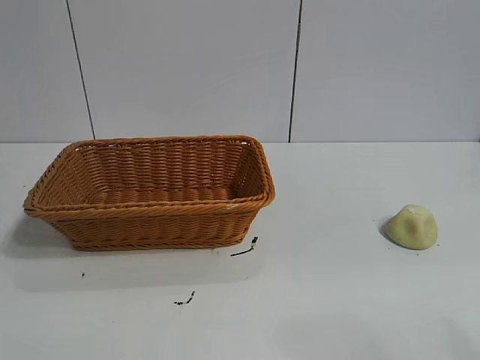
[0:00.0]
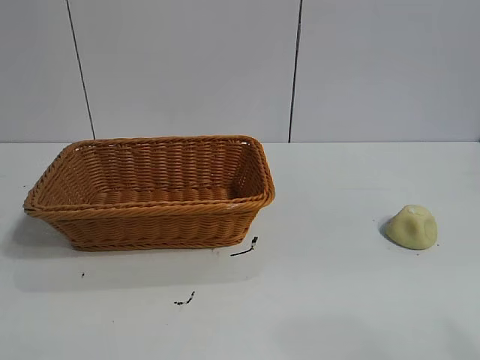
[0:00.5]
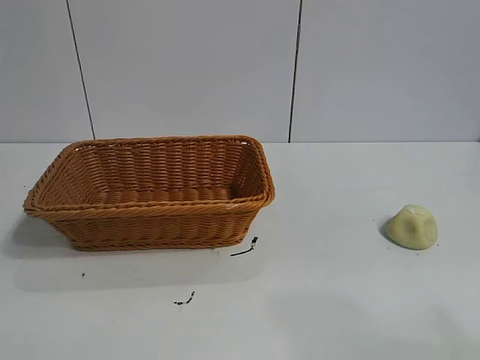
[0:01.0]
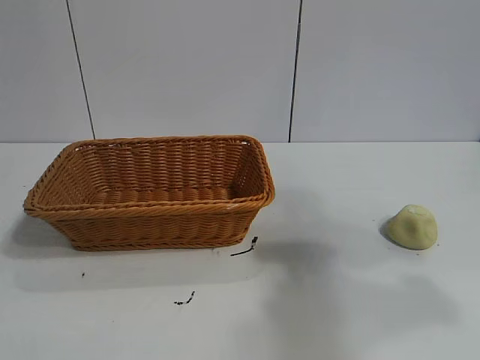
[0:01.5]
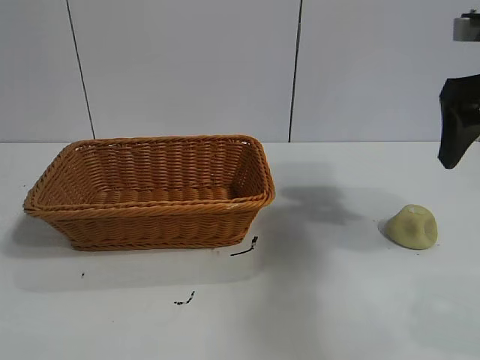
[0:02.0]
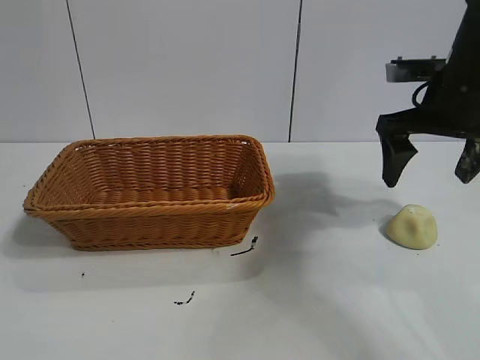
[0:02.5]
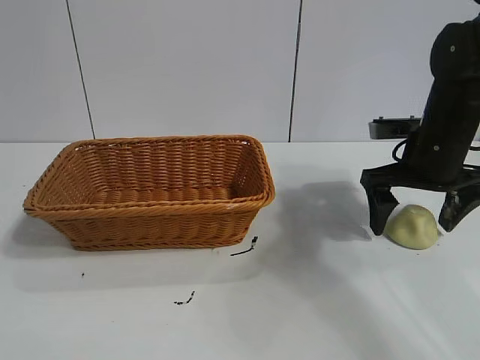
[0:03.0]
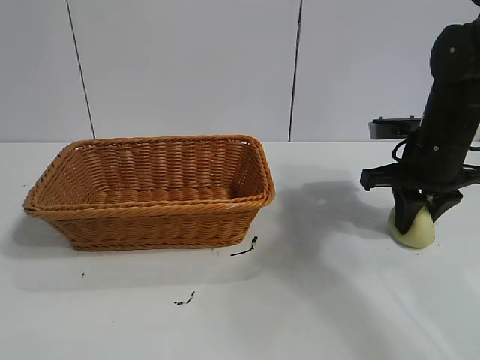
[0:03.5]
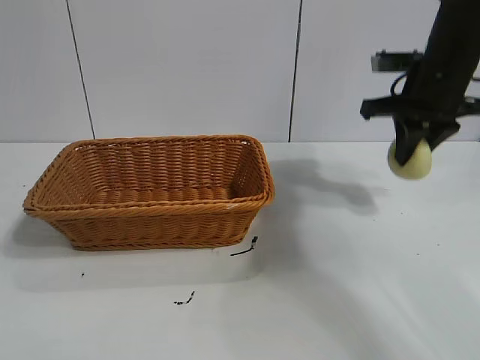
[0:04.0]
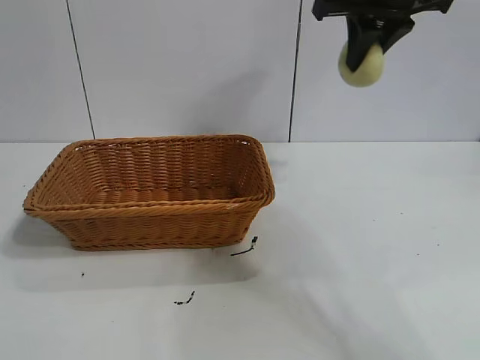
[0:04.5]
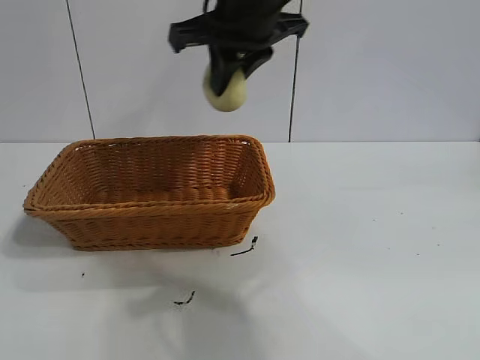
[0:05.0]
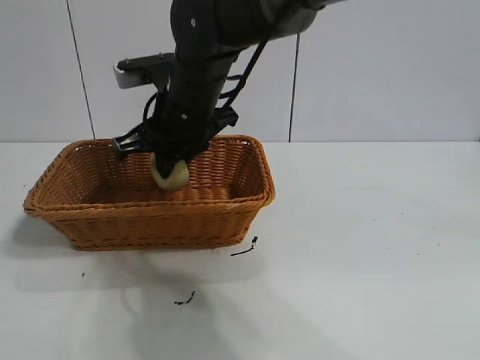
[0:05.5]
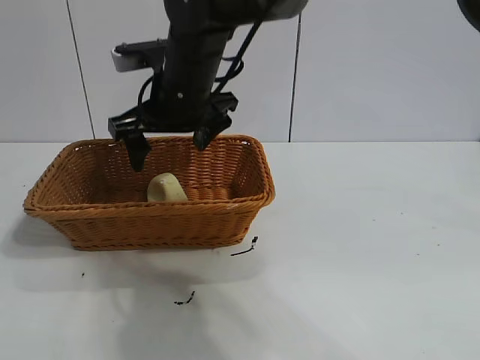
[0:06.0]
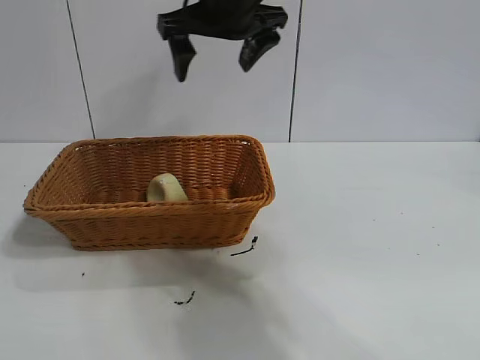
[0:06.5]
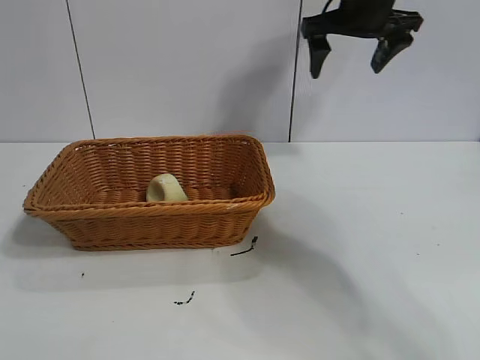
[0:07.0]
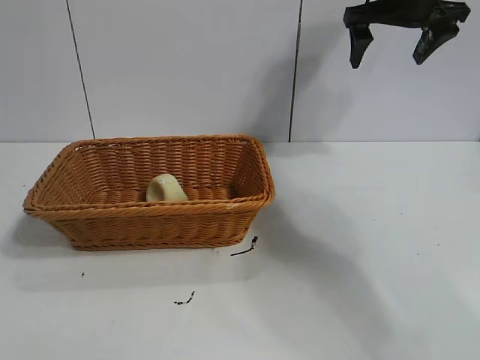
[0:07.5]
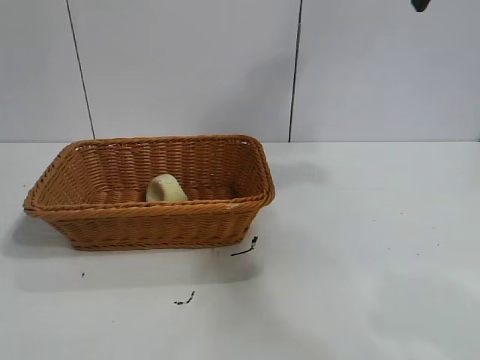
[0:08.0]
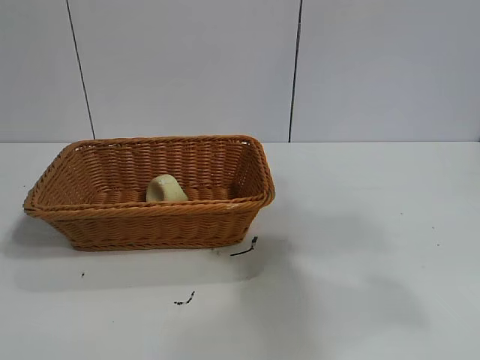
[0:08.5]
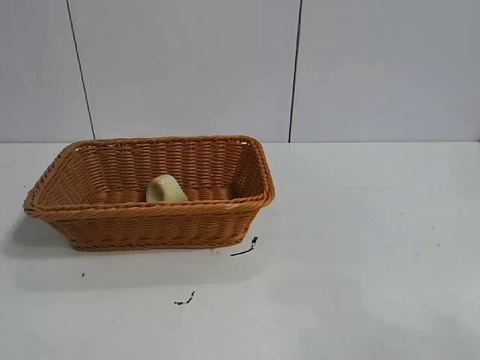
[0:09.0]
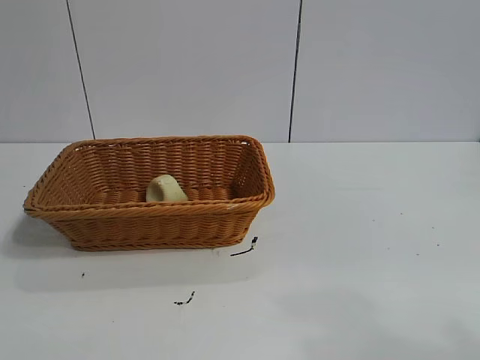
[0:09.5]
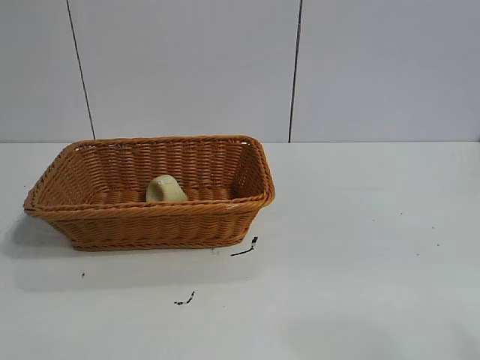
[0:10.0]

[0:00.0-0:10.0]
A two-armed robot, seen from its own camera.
Task of the whole recording: pick up the egg yolk pastry and put it into the basket.
Step, 0:01.0 to 0:03.5: Grasp egg yolk pastry with right gripper.
Step, 0:04.0 to 0:05.5: Place the egg yolk pastry in the basket with right gripper.
